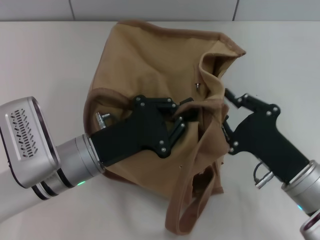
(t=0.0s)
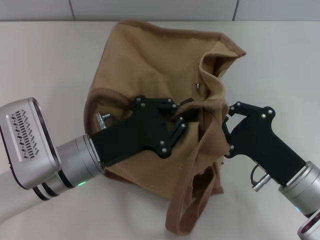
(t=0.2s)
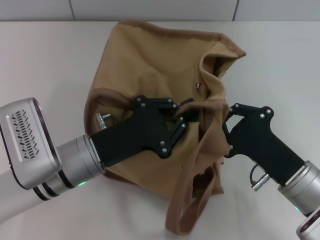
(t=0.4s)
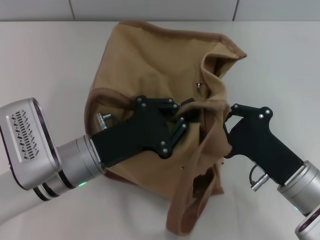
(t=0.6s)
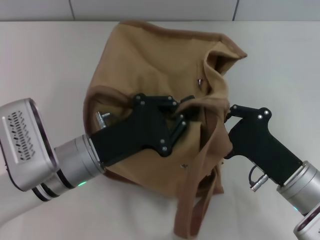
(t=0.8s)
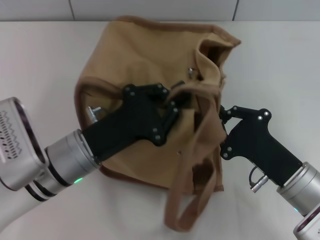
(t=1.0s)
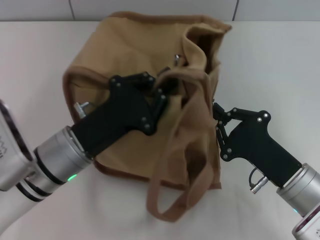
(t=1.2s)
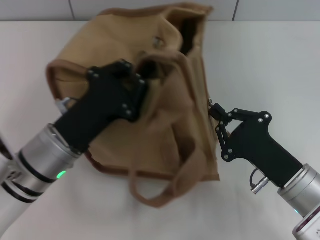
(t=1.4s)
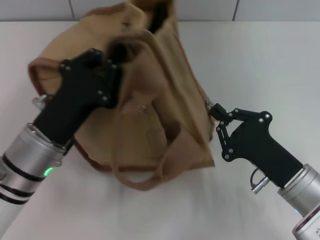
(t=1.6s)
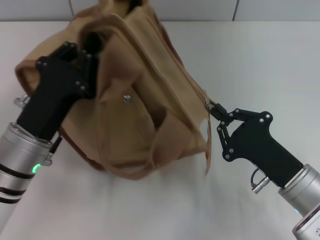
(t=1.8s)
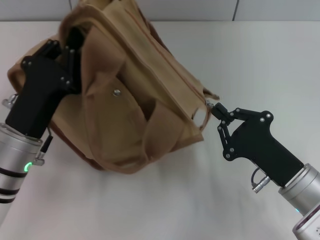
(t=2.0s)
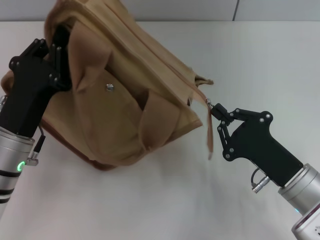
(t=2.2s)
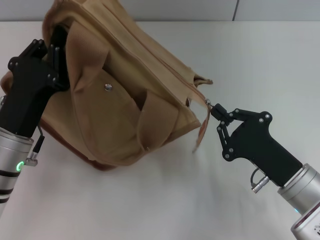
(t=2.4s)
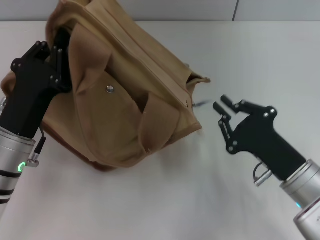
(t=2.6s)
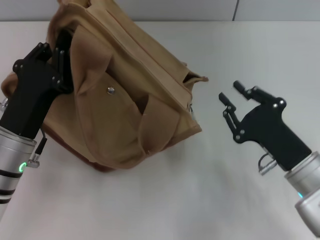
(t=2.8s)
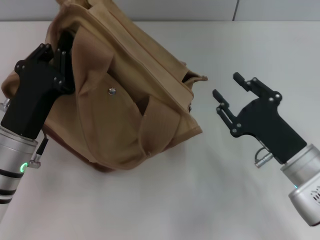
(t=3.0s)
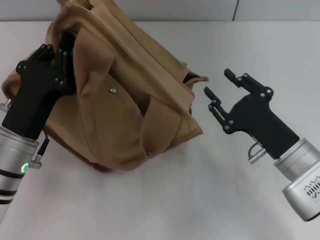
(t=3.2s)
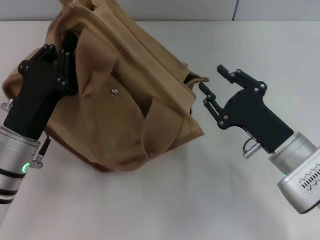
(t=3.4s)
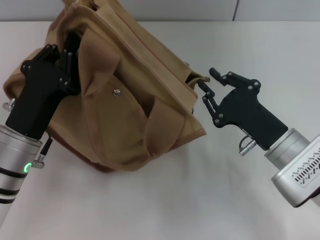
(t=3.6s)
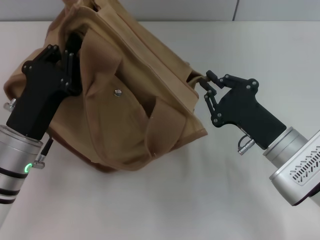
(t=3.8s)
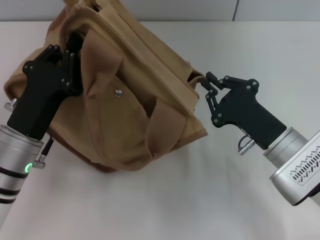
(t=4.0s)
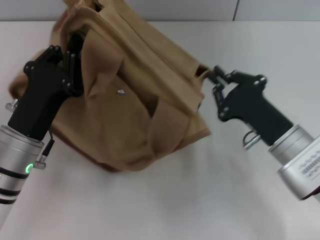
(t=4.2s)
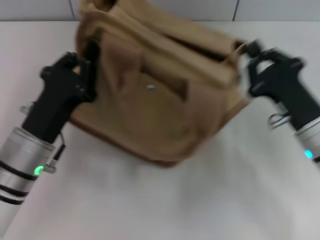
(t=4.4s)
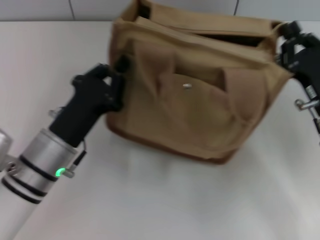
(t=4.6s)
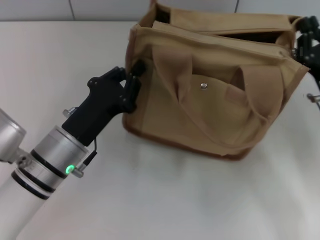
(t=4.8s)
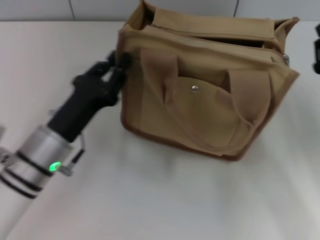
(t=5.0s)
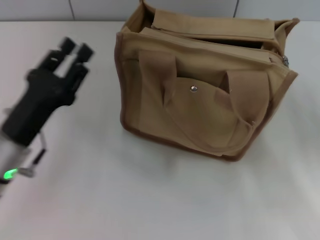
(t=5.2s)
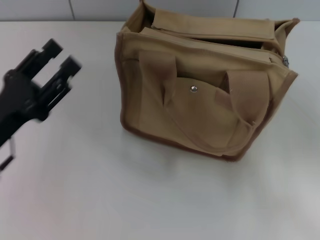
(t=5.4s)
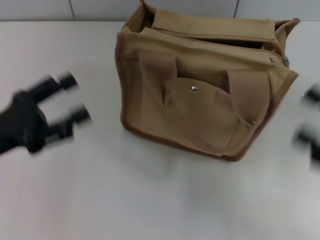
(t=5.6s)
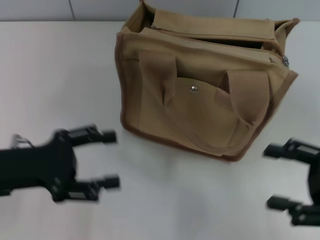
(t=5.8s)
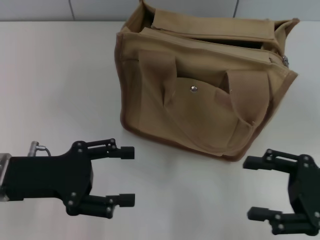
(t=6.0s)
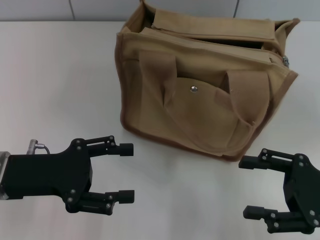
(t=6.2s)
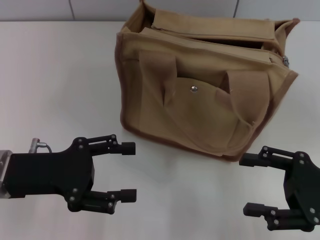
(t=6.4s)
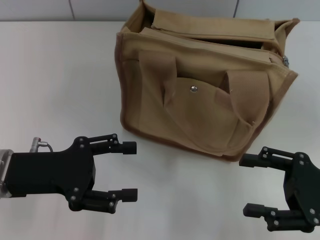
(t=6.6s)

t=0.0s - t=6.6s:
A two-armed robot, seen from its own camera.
Step, t=0.0s - t=2.6s: Pull open the zipper with your right hand.
Step, t=2.8s - t=5.0s: Grab the bag with your left hand.
t=0.0s - t=1.6s: The right gripper closes up.
t=1.6s - t=3.2s: The right gripper opens its fingers.
t=3.2s - t=5.0s: The right gripper travels to the right by roughly 5 cm, and closes its fingers.
t=5.0s - t=6.6s: The left gripper heads to the left, covering about 5 cm, and opens its fingers. Meanwhile the right gripper heads backward, covering roughly 5 cm, and opens up.

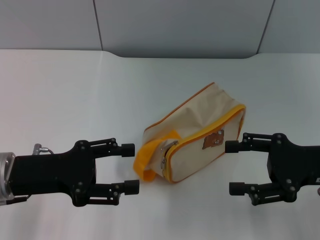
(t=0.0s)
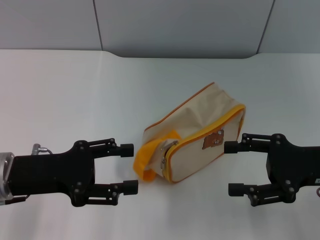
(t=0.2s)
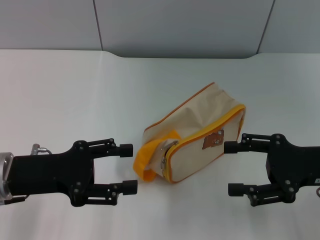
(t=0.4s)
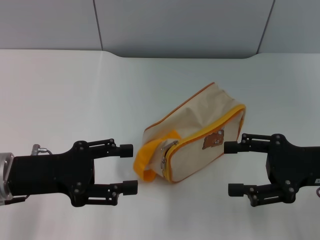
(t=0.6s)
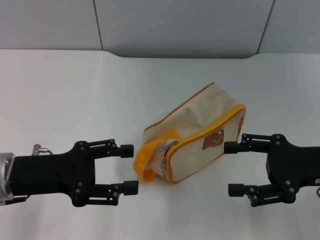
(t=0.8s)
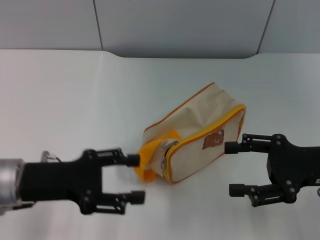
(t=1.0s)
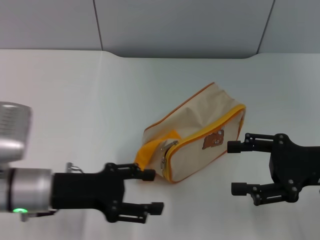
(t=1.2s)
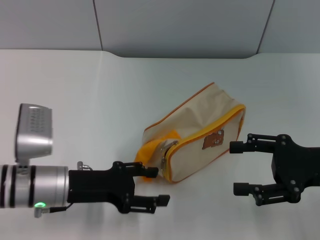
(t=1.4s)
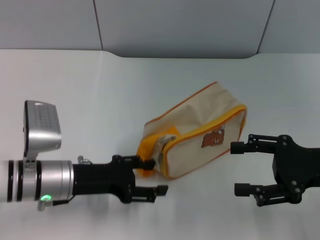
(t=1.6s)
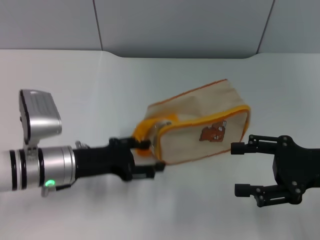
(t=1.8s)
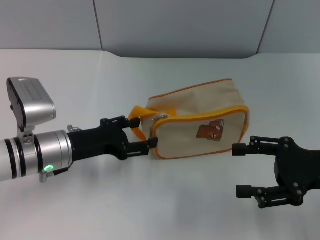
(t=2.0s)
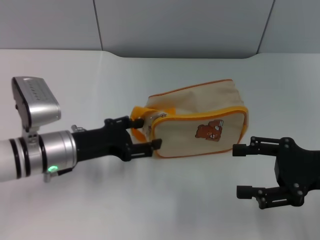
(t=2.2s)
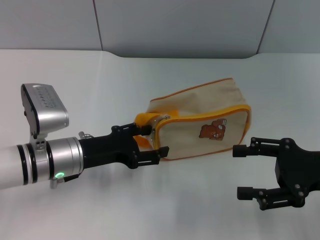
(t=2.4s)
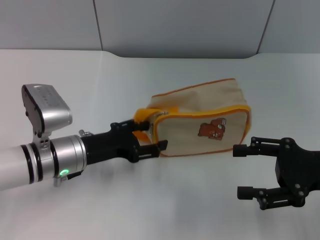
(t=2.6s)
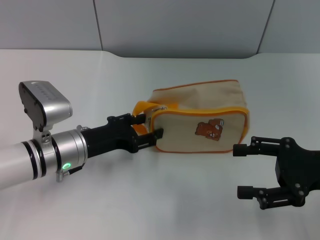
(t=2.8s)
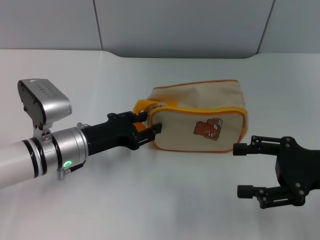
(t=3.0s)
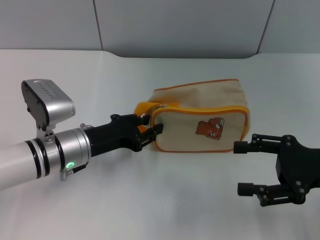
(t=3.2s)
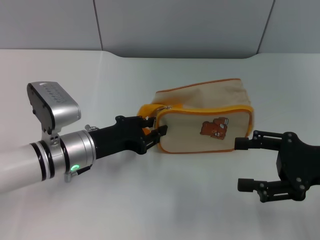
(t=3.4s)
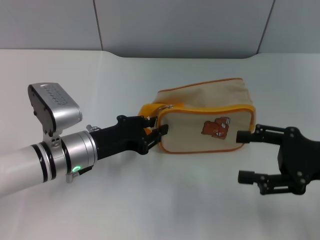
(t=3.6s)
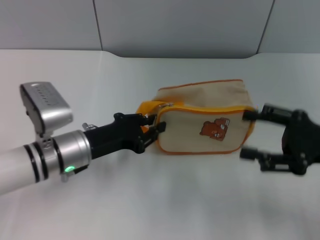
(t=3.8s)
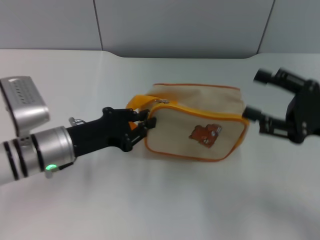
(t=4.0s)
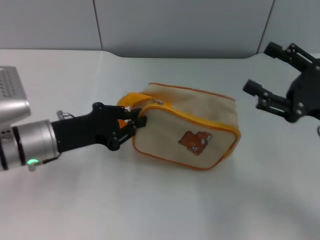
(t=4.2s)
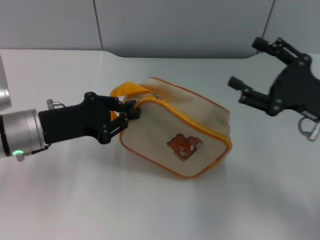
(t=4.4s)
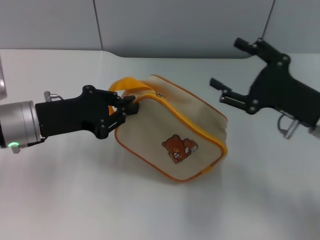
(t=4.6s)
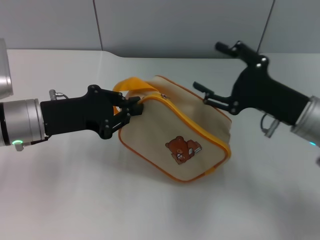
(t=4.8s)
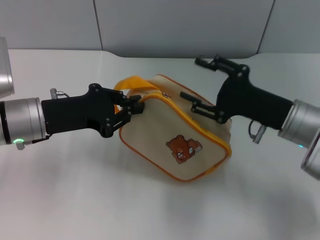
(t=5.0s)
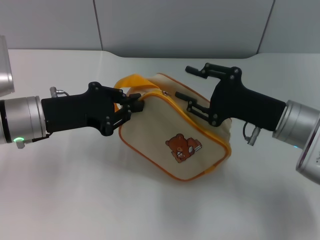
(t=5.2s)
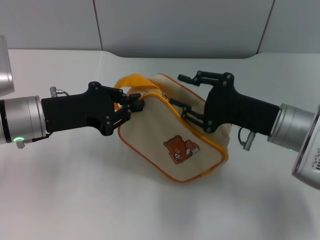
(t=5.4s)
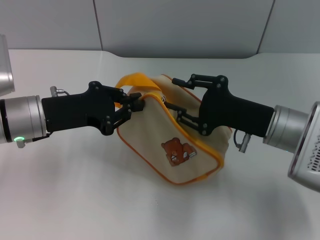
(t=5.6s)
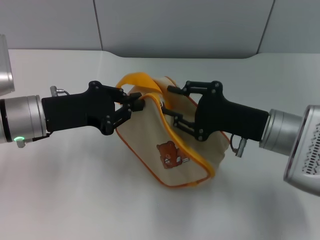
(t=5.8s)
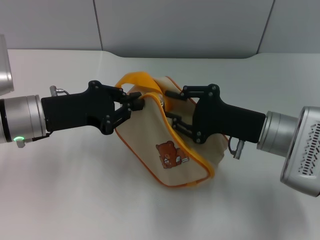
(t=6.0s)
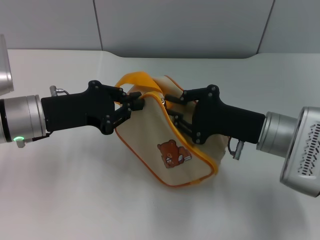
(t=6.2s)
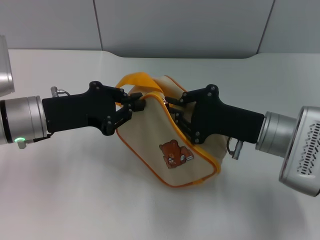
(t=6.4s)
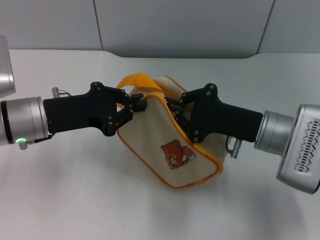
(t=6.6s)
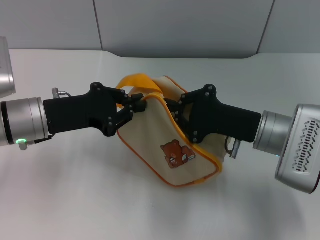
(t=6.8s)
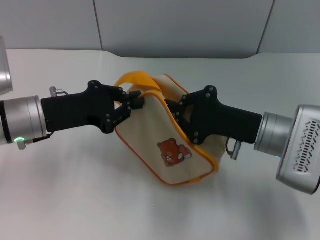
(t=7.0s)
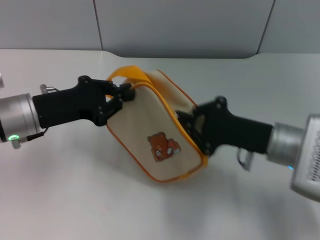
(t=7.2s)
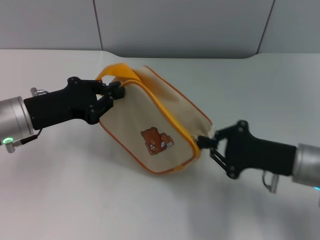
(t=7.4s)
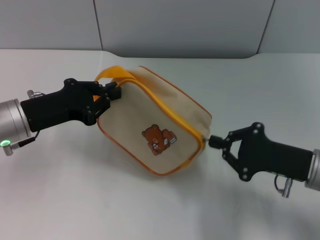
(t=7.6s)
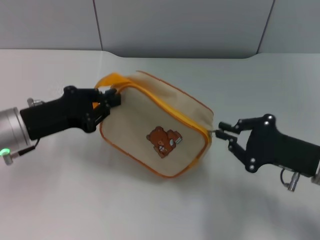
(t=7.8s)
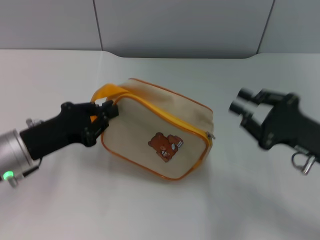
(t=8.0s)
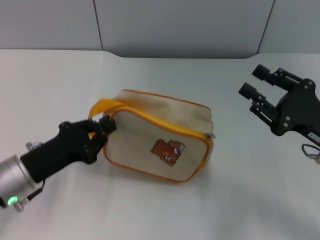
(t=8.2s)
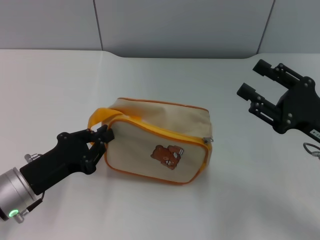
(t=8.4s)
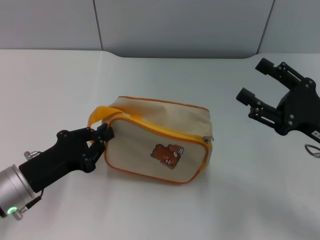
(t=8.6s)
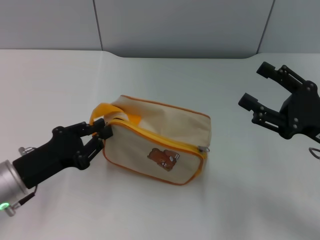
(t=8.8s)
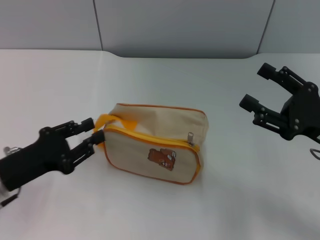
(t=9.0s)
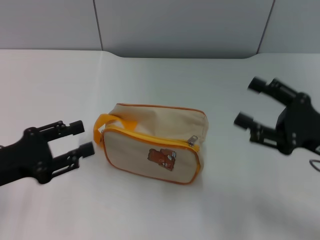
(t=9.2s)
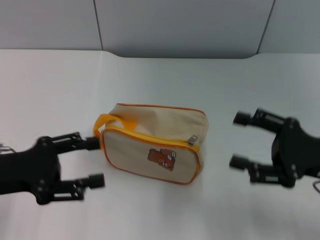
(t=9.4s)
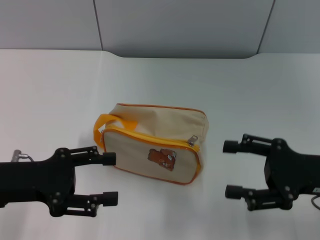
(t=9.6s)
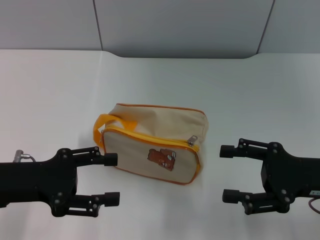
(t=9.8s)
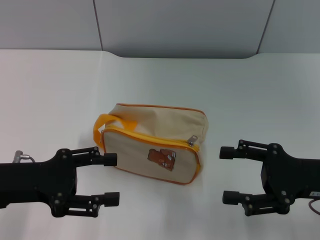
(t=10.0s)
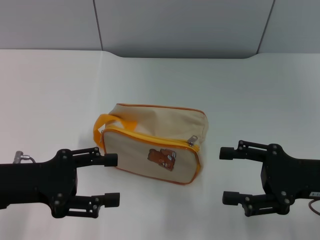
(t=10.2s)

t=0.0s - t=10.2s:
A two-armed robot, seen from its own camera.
Step, t=0.0s - t=4.6s: Pick up the bag with left gripper.
Step, t=4.8s - t=7.8s: Unzip the zipper of bag with right gripper.
Step, t=8.0s - t=9.0s: Place the bag on the table with left gripper.
t=0.0s - t=1.4s: The left gripper shifts roughly 5 cm downward.
t=1.4s - t=3.0s: The left gripper goes some 5 cm forward.
t=3.0s - t=4.4s: The left gripper heads upward, covering approximately 5 cm, and closes.
t=4.4s - t=5.8s: The right gripper shifts about 10 cm to the left, and closes its fingers.
t=5.8s - t=7.2s: The right gripper closes.
t=7.2s - t=8.8s: The left gripper shifts approximately 10 cm backward and downward; the right gripper goes roughly 10 cm to the right, and opens its fingers.
t=8.8s - t=10.2s: The left gripper goes roughly 5 cm upward, and opens its fingers.
